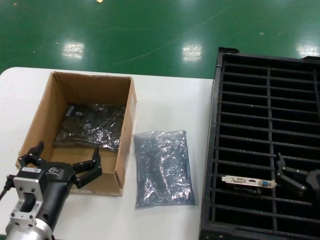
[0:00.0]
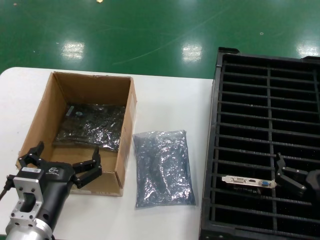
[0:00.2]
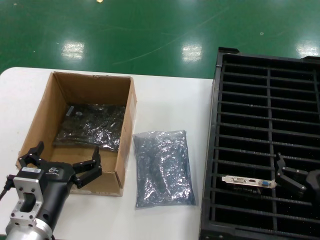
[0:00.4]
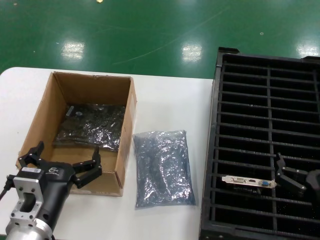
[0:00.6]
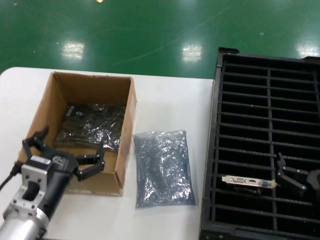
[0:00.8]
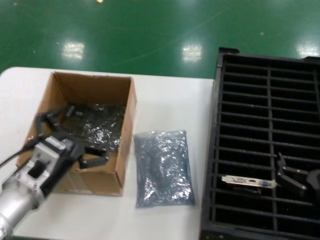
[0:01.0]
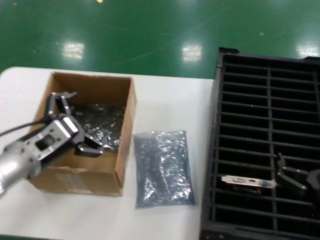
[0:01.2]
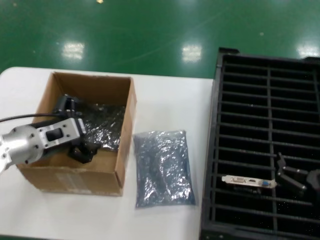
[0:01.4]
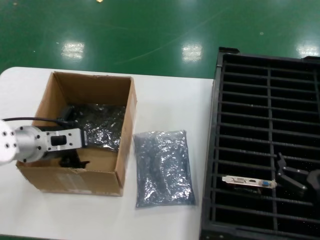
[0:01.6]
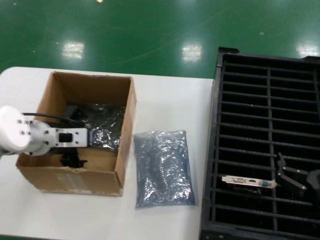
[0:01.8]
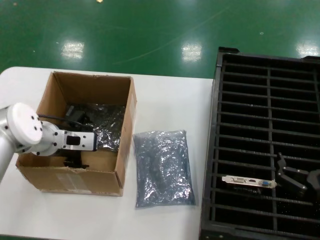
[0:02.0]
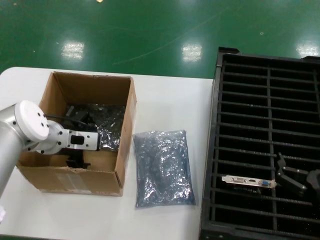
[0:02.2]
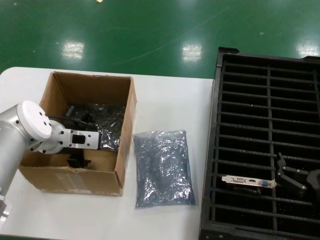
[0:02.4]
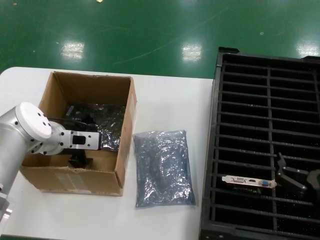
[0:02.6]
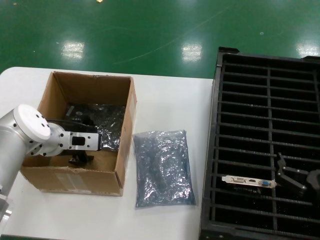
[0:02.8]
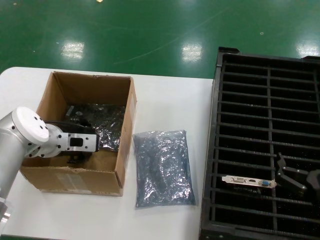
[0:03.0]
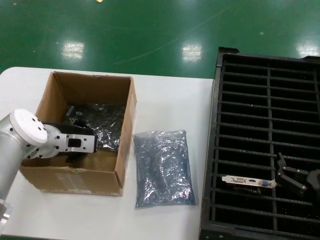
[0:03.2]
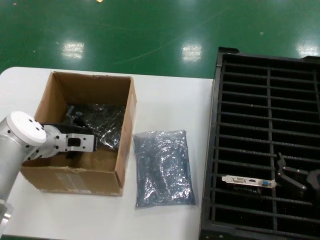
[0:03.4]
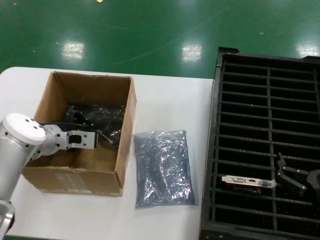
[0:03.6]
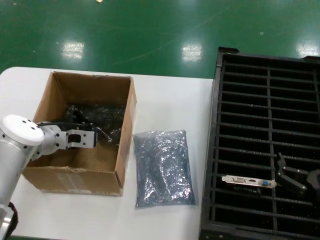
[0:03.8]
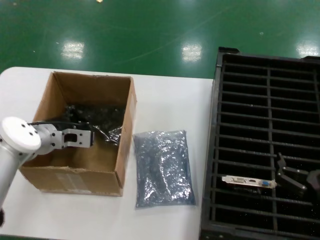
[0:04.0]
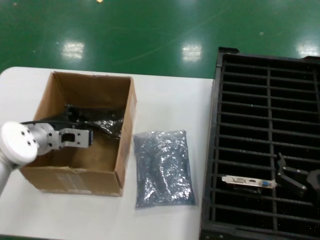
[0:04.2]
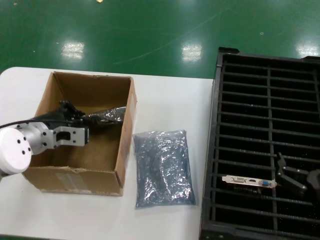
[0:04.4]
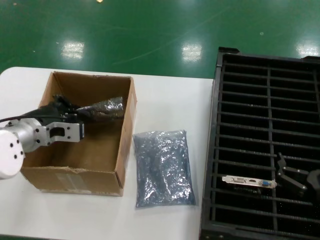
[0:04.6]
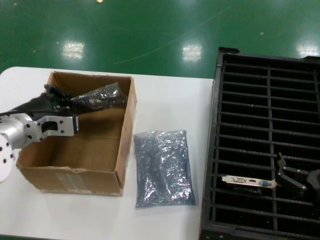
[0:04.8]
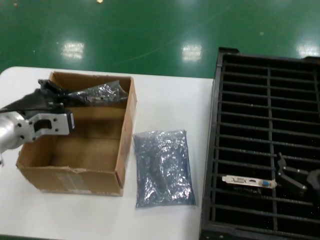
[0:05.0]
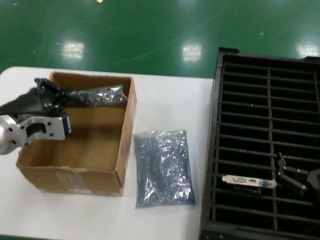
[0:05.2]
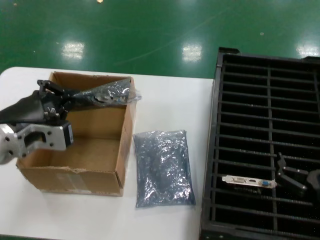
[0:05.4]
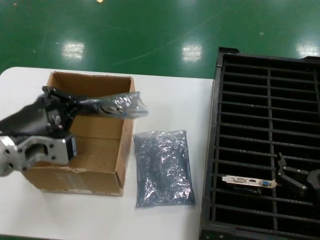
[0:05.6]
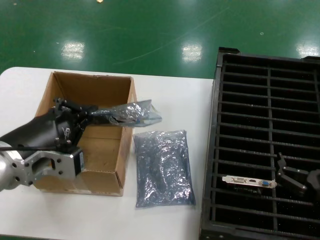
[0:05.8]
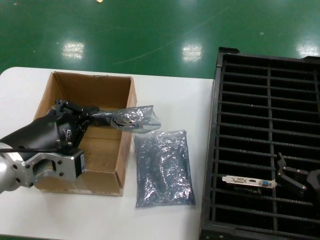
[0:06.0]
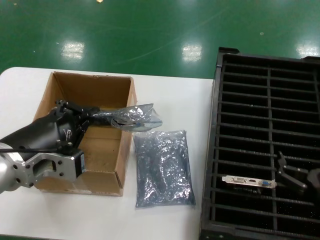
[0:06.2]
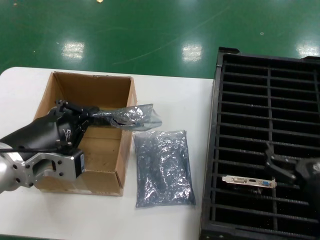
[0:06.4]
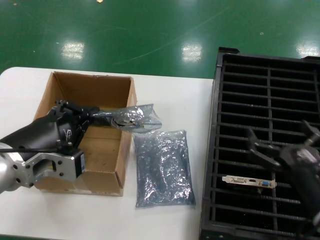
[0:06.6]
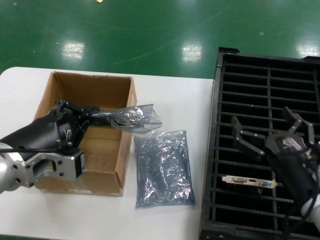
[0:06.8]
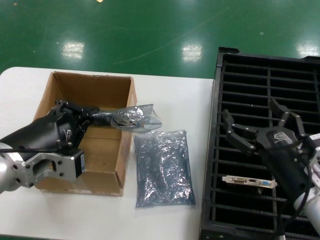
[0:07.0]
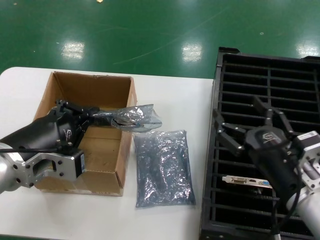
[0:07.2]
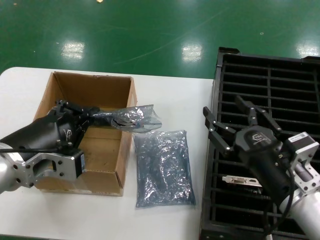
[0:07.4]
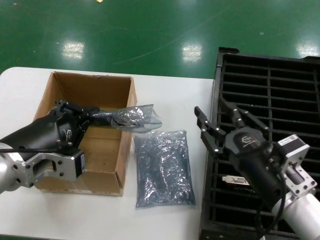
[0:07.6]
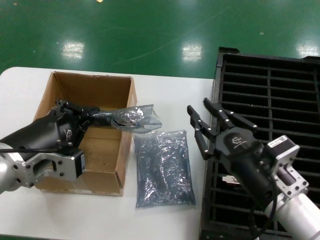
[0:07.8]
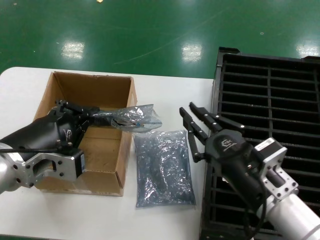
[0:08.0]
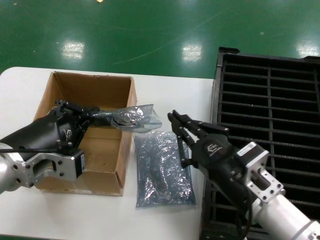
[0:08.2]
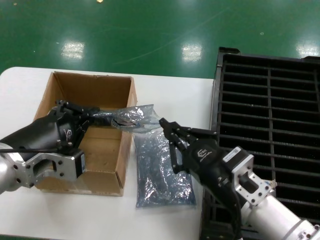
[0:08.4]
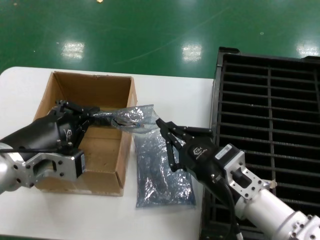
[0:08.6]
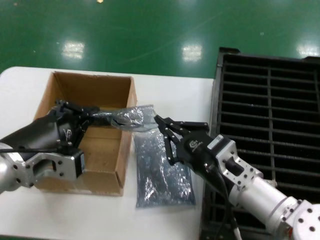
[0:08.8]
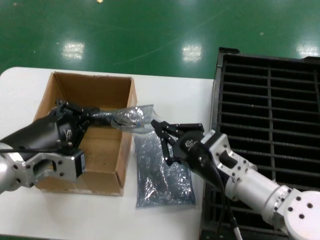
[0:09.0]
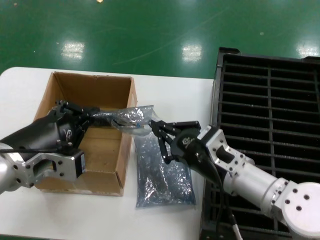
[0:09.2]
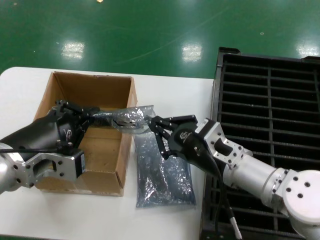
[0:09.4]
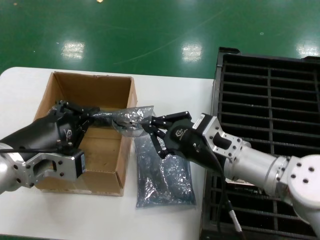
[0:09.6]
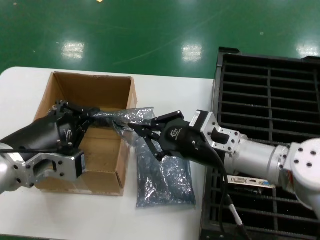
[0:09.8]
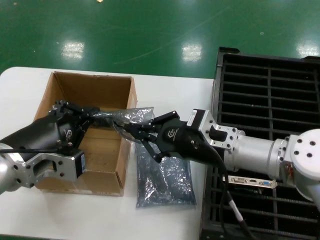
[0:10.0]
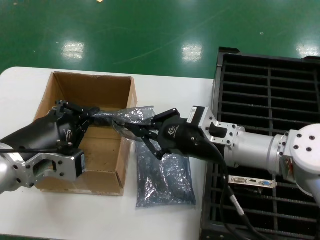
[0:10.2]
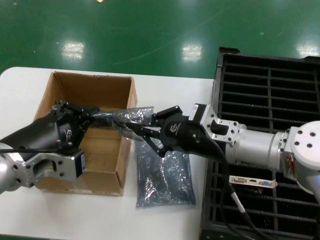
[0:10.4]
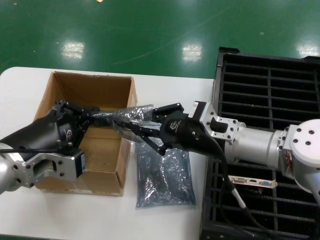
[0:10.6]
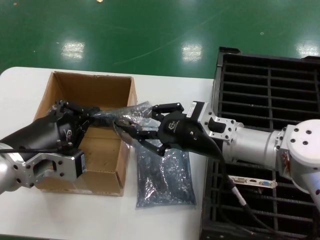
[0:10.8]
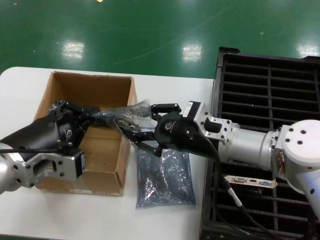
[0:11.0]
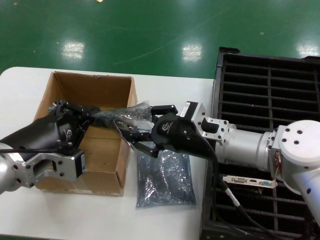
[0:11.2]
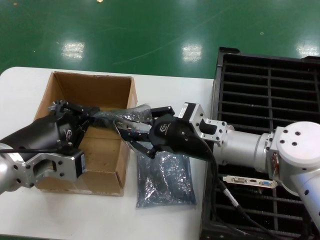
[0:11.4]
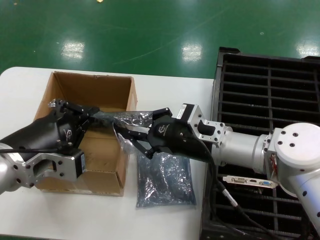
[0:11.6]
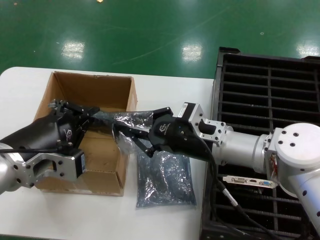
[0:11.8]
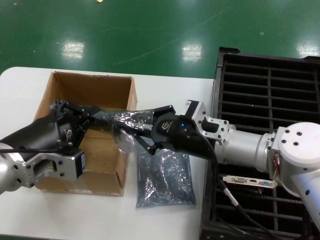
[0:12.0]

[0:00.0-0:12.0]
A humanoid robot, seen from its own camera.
Task of the whole recording: take out graphics card from box remove packaging put into black container.
Step, 0:00.0 to 0:03.8: Grasp the bag.
Step, 0:04.0 to 0:06.4: Lift the bag.
0:00.0 to 0:01.6: The left hand shifts approximately 20 cm forward, upward and to the left.
0:01.6 to 0:03.0: The left hand goes roughly 5 cm forward.
0:03.0 to 0:04.4: The hands move only a little.
0:04.4 to 0:06.0: The left hand travels backward by roughly 20 cm.
0:06.0 to 0:07.6: The right hand shifts some 10 cm to the left and upward.
0:07.6 to 0:09.0: The right hand travels forward and to the left by about 10 cm.
0:09.0 to 0:10.4: The right hand moves forward and upward, some 10 cm.
0:10.4 to 0:12.0: There are only small adjustments of the hands.

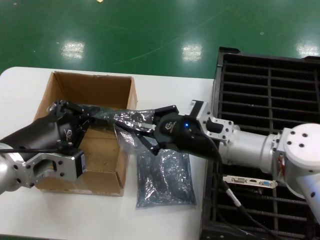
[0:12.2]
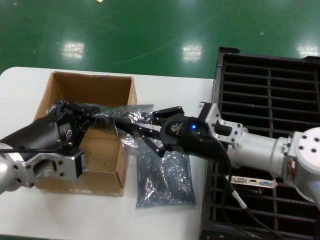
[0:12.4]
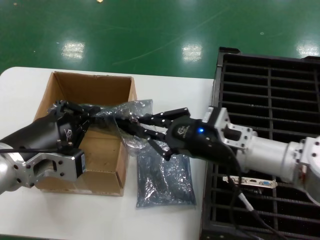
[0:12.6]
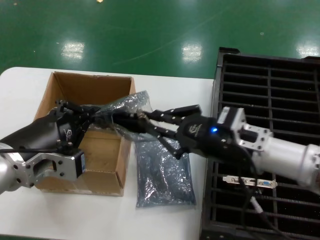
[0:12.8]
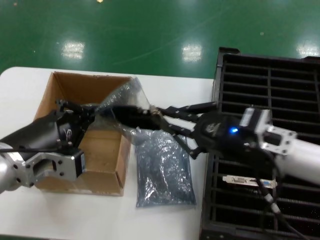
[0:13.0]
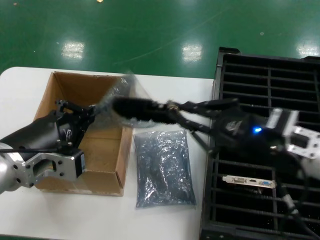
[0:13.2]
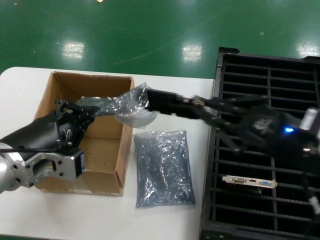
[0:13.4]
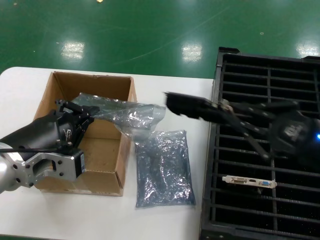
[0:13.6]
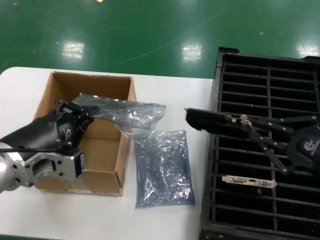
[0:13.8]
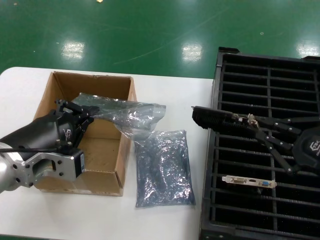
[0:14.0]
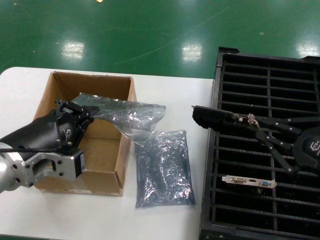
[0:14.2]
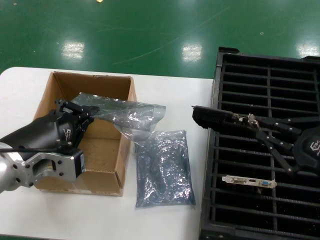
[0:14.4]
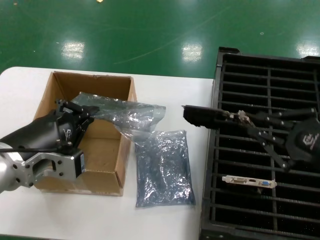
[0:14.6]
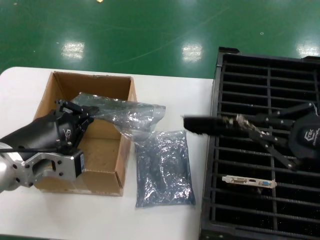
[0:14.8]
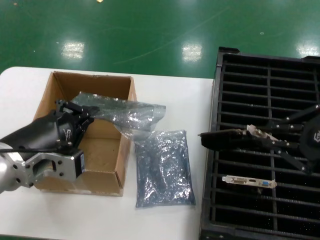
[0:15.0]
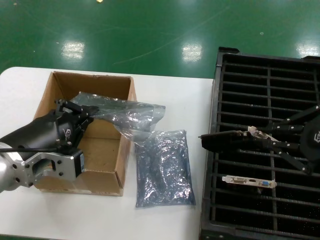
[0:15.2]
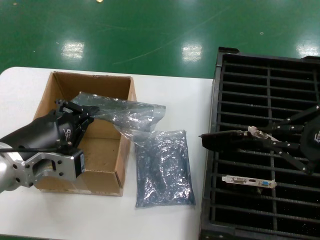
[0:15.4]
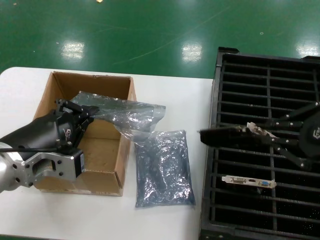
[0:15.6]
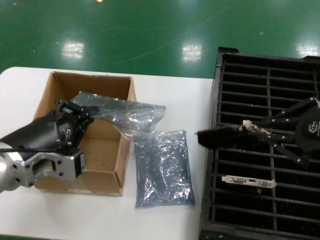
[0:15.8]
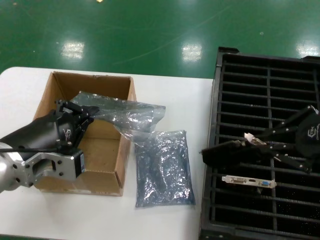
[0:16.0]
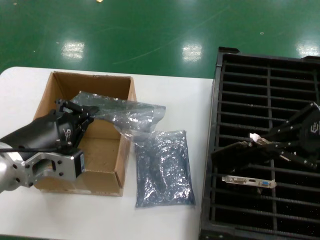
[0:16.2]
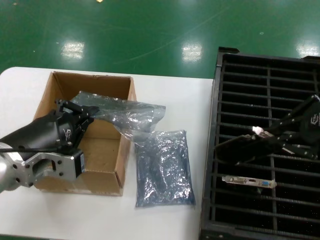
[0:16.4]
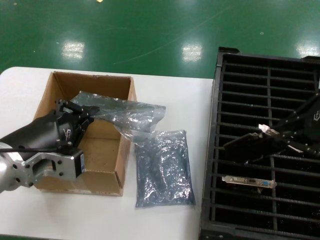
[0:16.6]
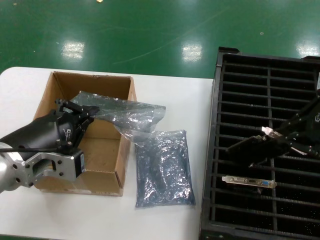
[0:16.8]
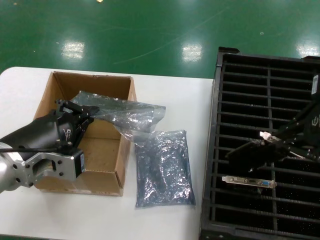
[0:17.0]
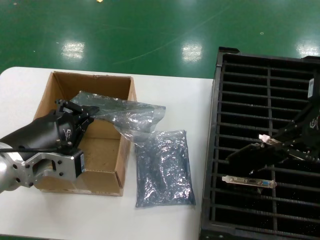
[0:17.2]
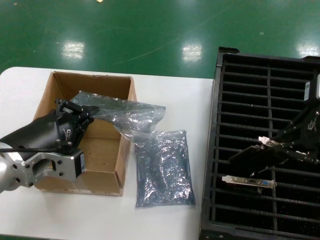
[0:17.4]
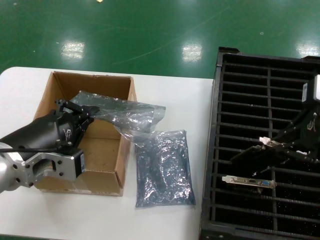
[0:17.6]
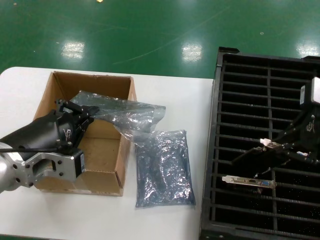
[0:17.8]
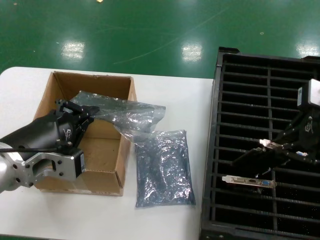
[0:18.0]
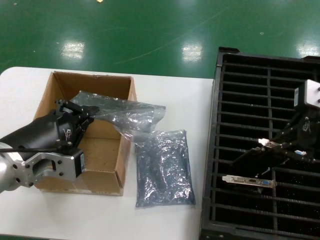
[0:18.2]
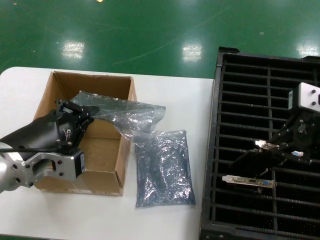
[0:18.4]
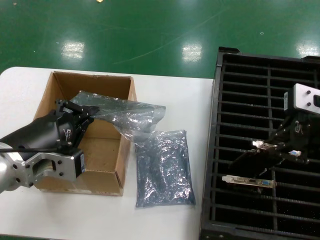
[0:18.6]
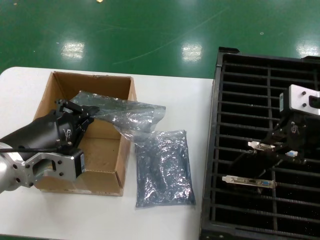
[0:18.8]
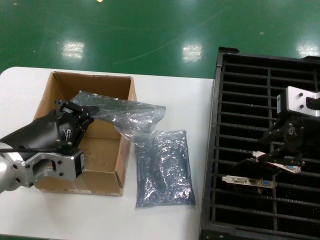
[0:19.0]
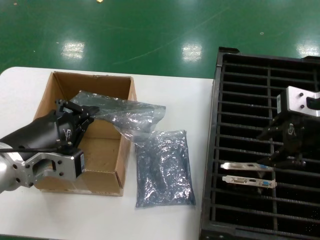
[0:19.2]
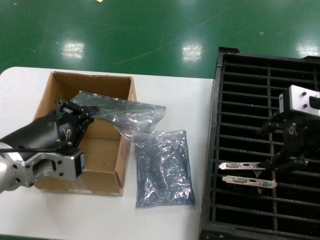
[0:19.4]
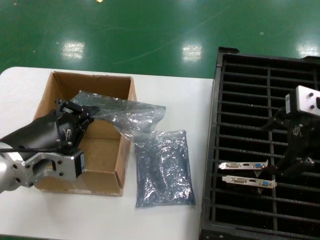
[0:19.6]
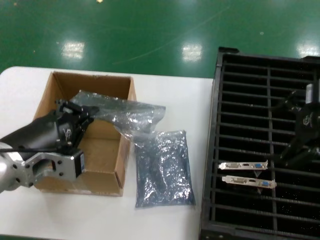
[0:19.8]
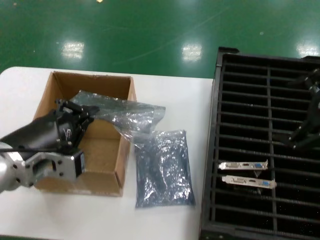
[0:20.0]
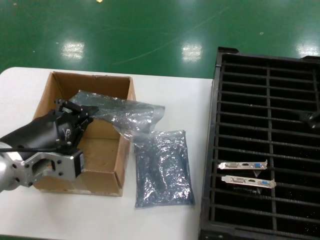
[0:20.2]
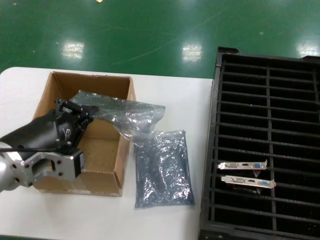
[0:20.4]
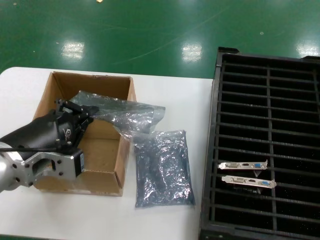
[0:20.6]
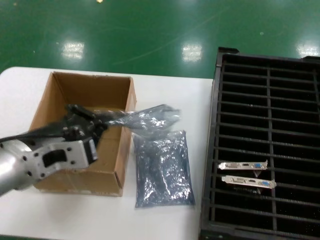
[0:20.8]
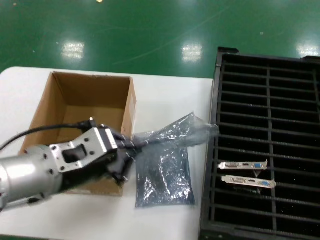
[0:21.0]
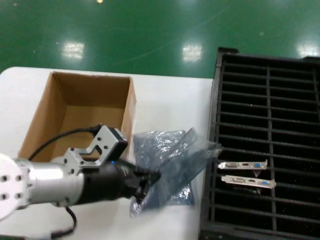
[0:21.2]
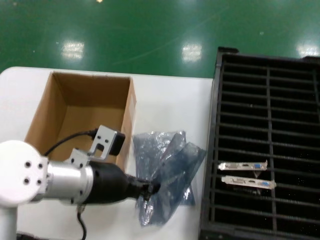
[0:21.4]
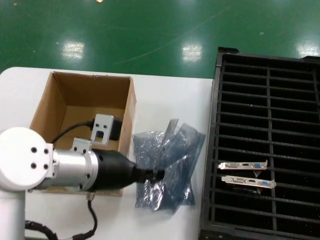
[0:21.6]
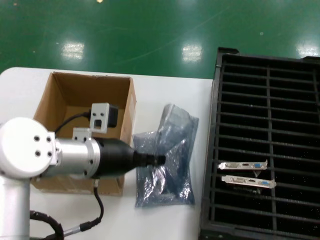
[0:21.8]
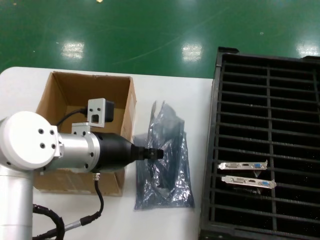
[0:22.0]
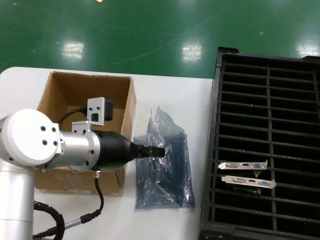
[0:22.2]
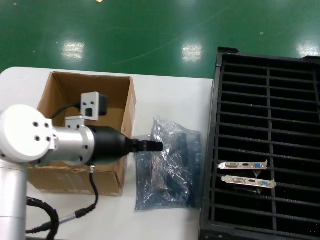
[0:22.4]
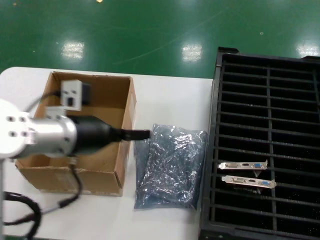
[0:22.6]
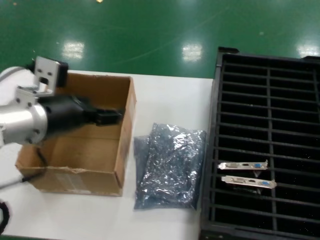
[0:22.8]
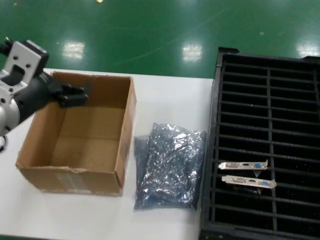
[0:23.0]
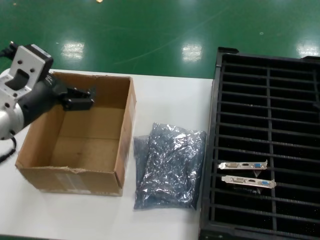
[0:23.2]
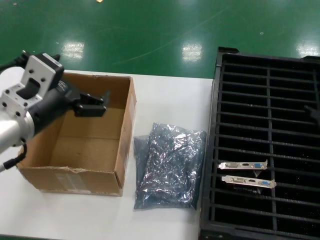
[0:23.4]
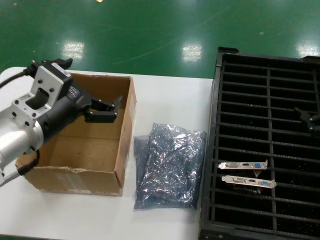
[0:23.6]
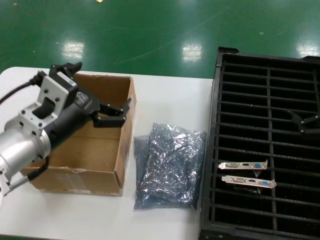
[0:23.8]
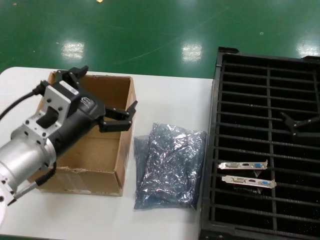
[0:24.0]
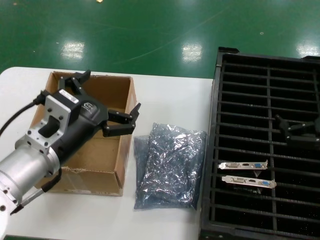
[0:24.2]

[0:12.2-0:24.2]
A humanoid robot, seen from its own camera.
Task of the whole recording: take out graphics card from box remove packaging put into black container.
Step, 0:14.0 to 0:19.6: Place the hard disk in the hard disk enclosure.
0:12.2 to 0:13.8: The right hand travels to the right and backward by some 25 cm.
0:13.8 to 0:15.2: The right hand goes approximately 10 cm upward.
0:15.2 to 0:16.6: The right hand shifts about 5 cm upward.
0:16.6 to 0:18.2: There are only small adjustments of the hands.
0:18.2 to 0:19.8: The hands move only a little.
0:19.8 to 0:21.2: The right hand goes approximately 15 cm to the right, while the left hand is displaced to the right by approximately 5 cm.
0:21.2 to 0:22.6: The left hand goes about 10 cm forward.
0:22.6 to 0:24.2: The right hand goes approximately 15 cm downward and to the left. Meanwhile the left hand is displaced backward by about 5 cm.
